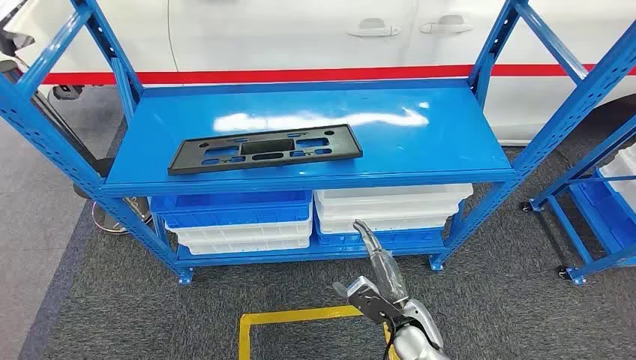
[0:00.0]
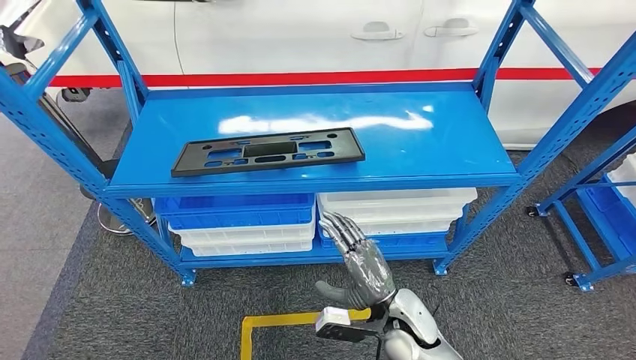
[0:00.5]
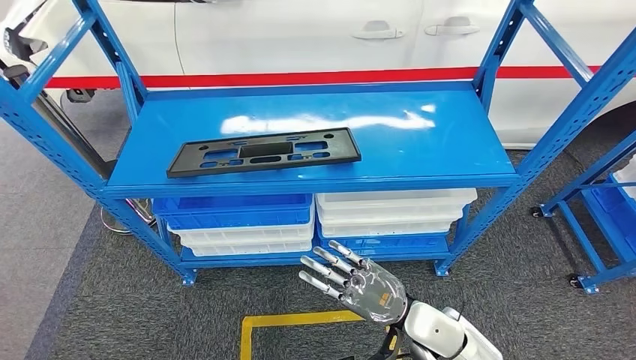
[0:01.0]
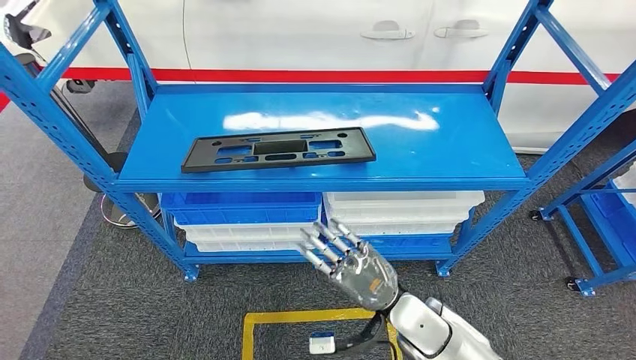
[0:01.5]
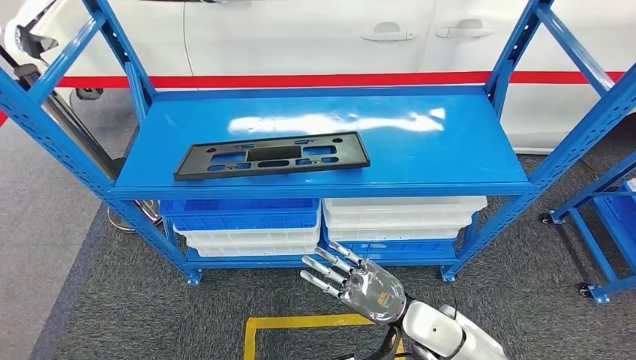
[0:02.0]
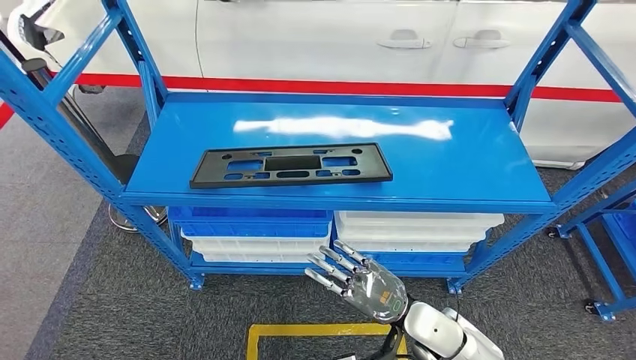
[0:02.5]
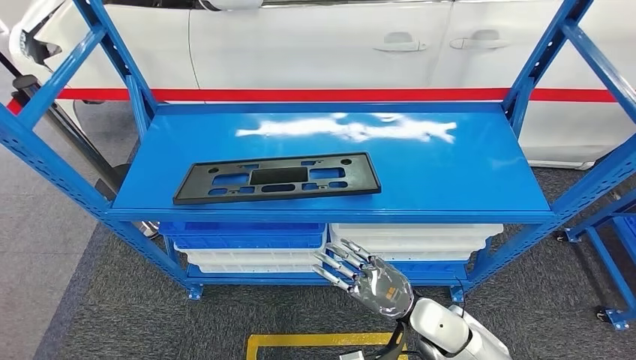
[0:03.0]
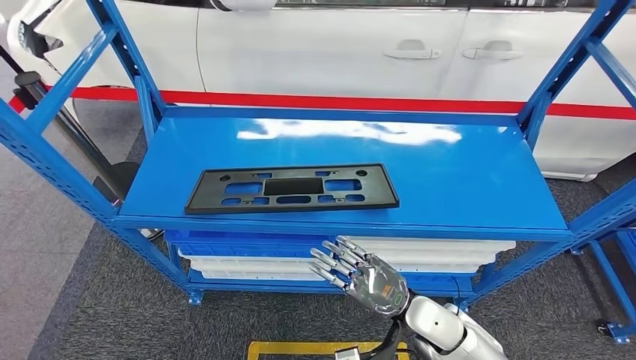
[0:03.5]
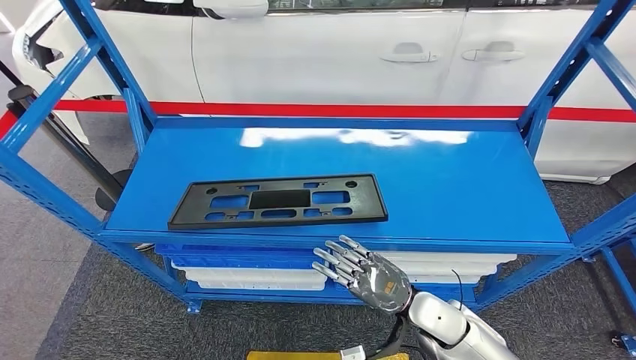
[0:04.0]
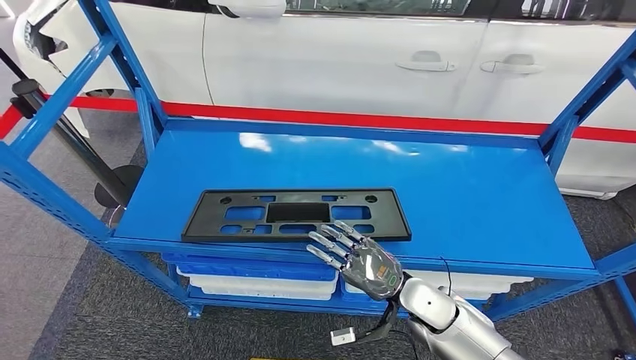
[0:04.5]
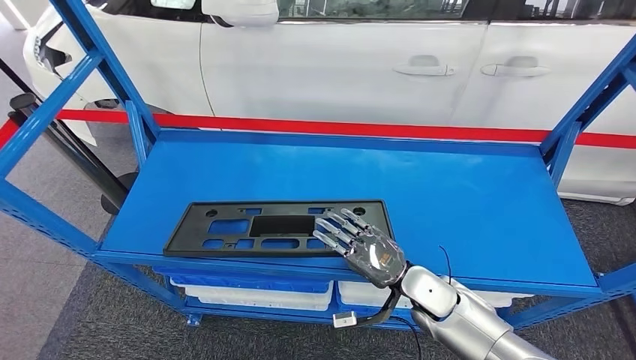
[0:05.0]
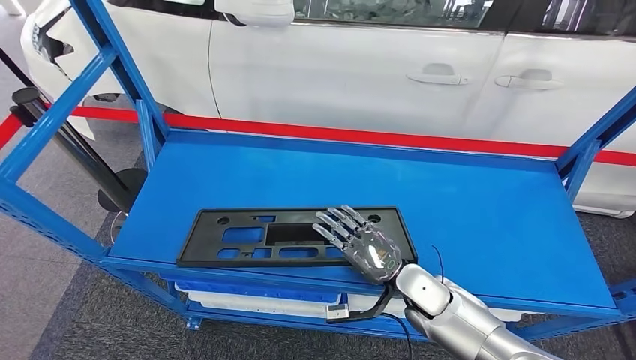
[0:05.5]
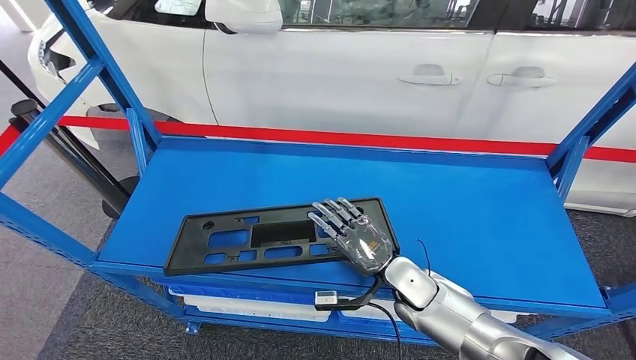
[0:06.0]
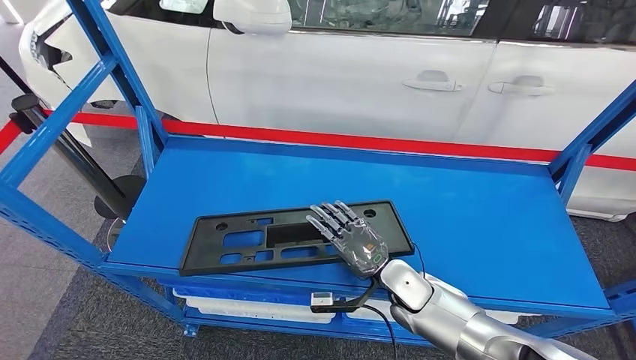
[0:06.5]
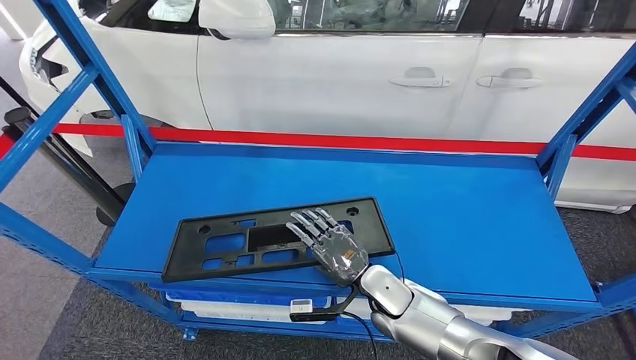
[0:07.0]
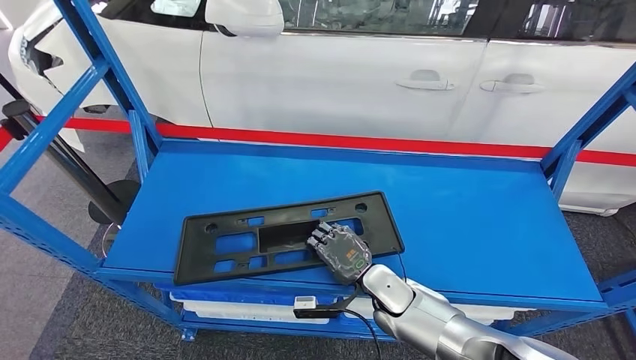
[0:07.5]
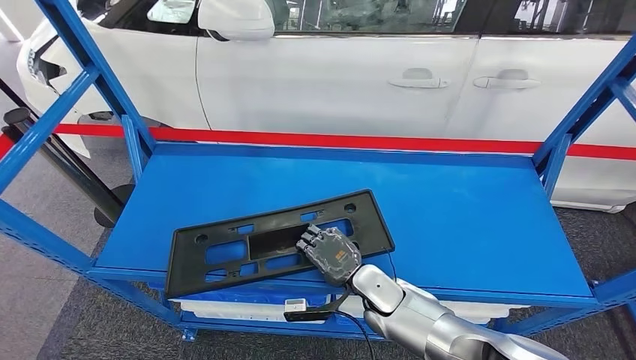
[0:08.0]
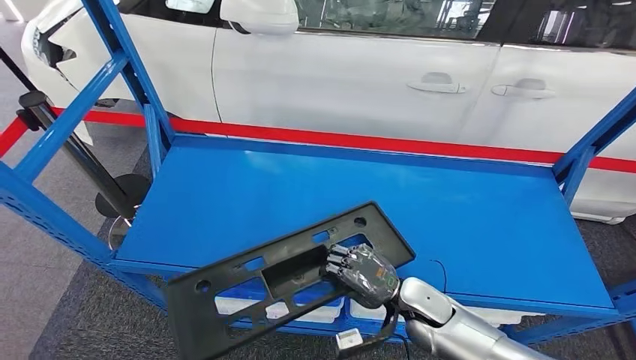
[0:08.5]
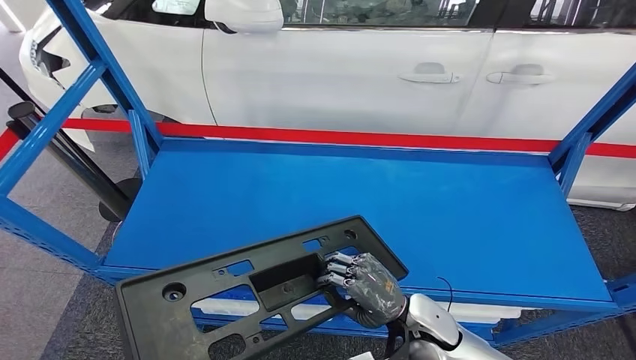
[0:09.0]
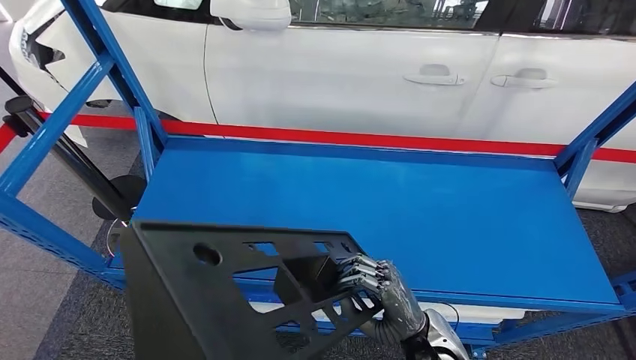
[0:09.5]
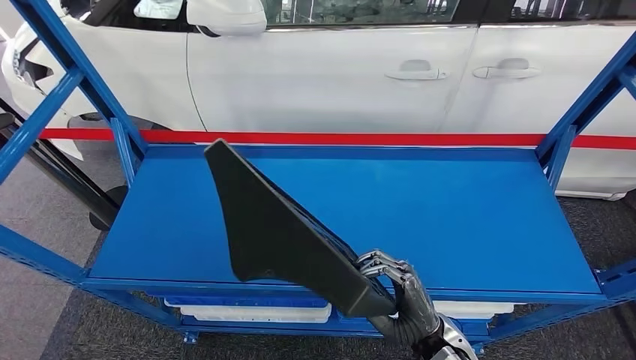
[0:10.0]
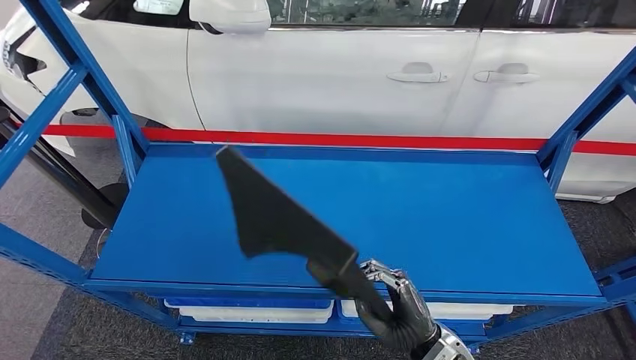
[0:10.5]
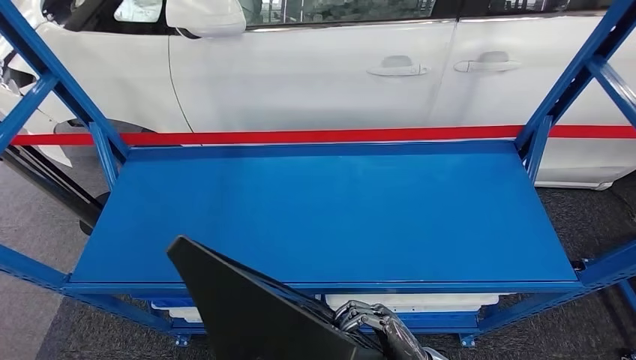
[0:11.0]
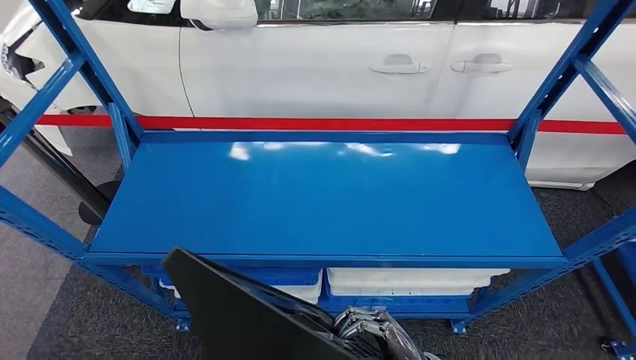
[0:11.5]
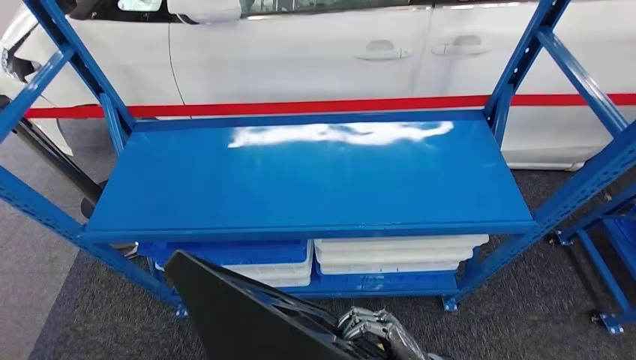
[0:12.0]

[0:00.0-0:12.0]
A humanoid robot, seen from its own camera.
Step, 0:00.0 to 0:10.0: Pick up the large material from the shelf.

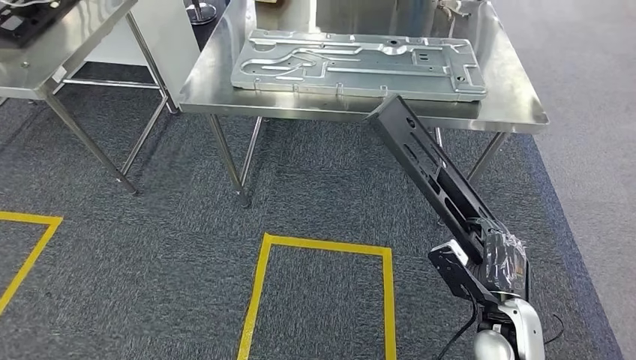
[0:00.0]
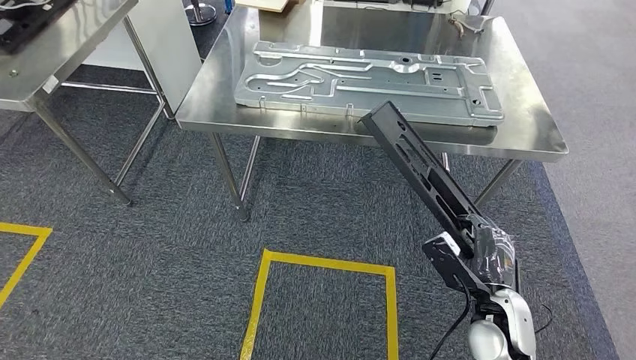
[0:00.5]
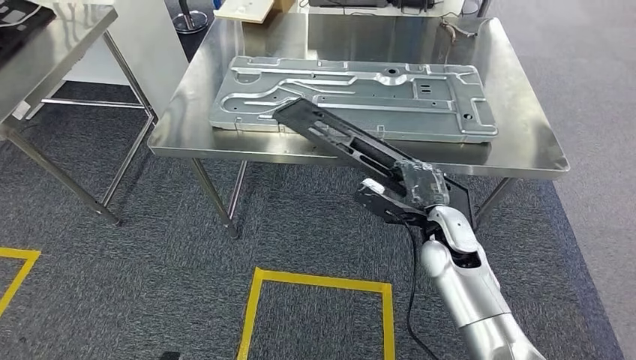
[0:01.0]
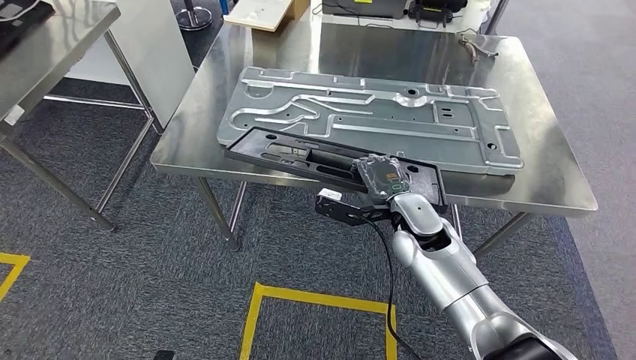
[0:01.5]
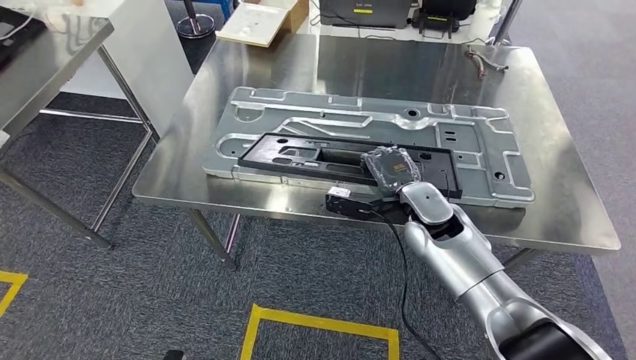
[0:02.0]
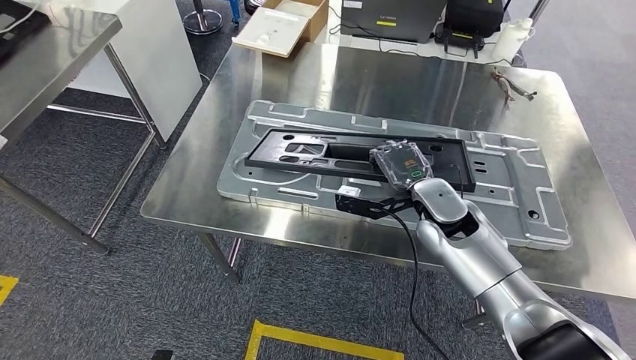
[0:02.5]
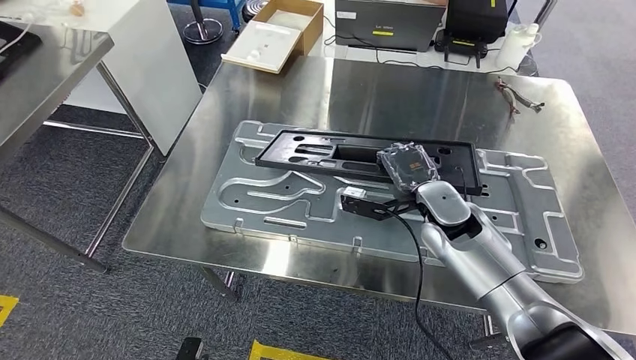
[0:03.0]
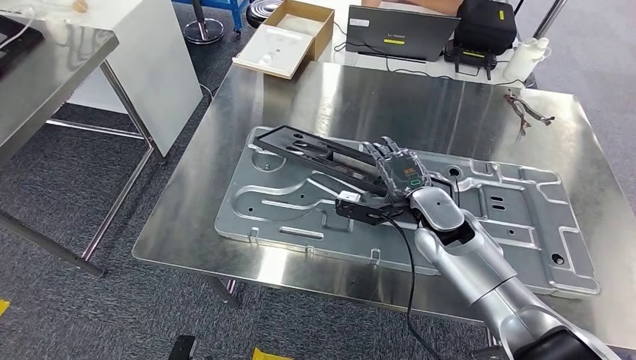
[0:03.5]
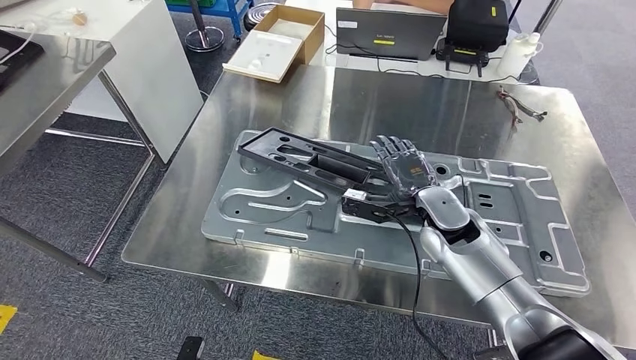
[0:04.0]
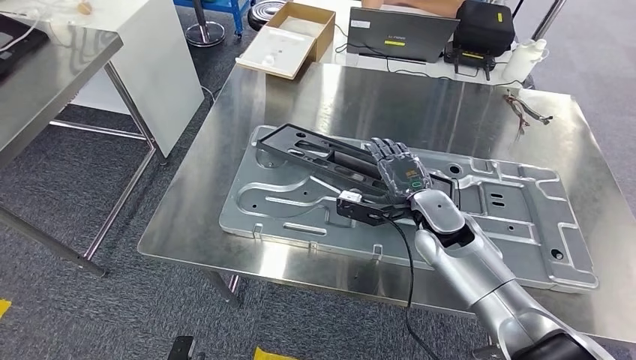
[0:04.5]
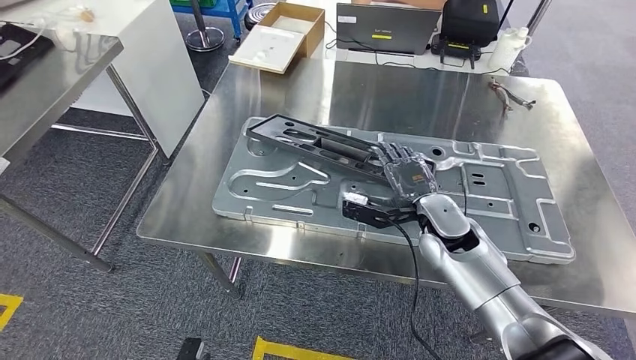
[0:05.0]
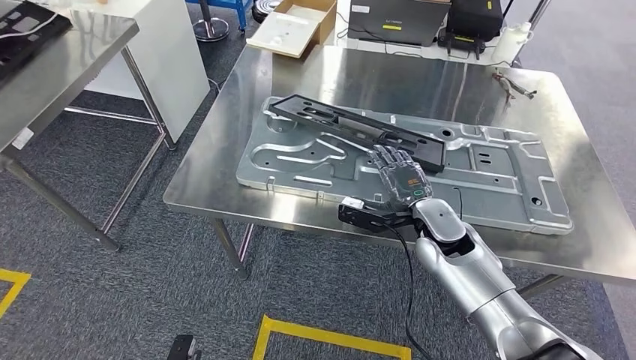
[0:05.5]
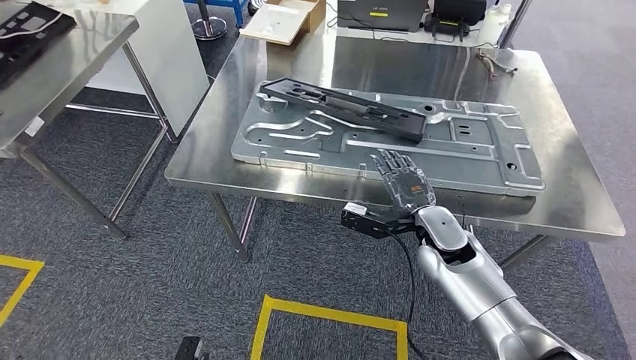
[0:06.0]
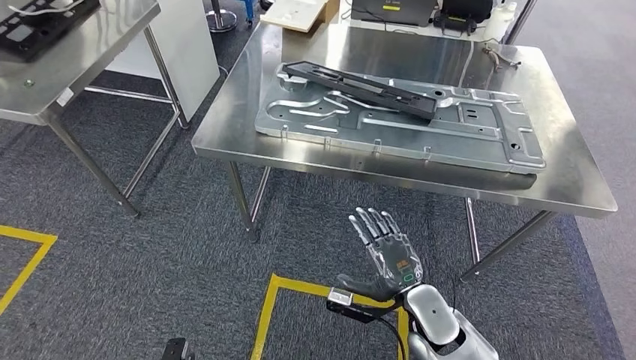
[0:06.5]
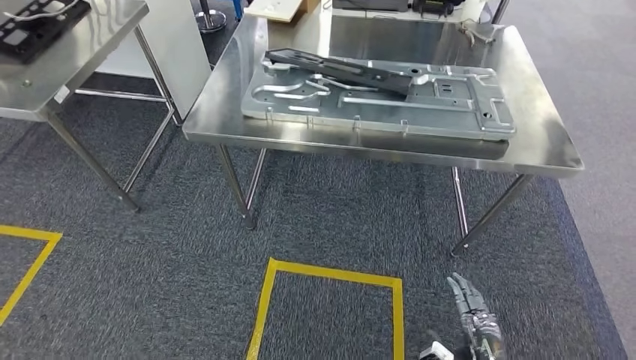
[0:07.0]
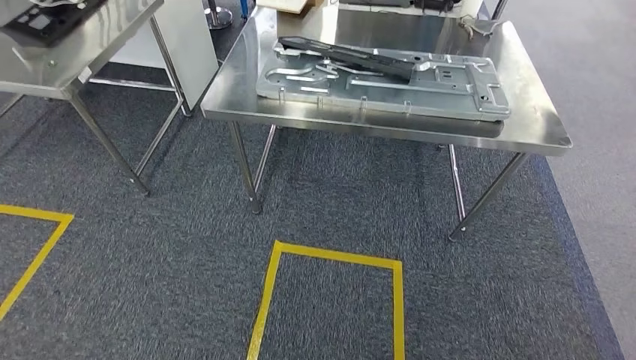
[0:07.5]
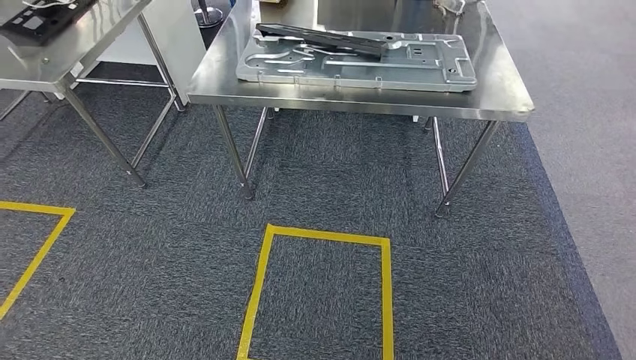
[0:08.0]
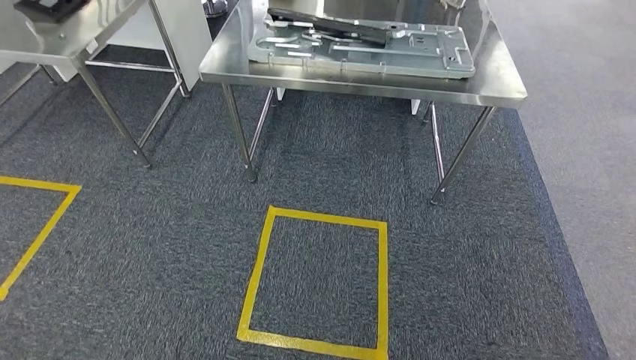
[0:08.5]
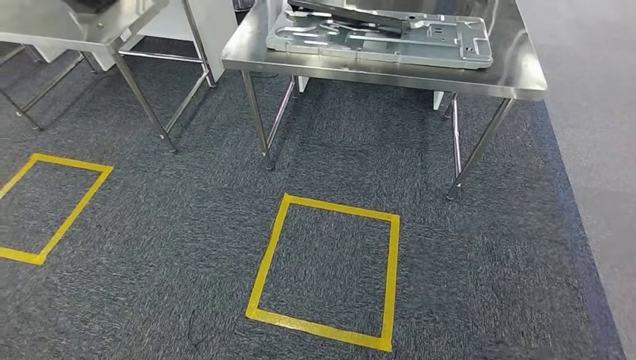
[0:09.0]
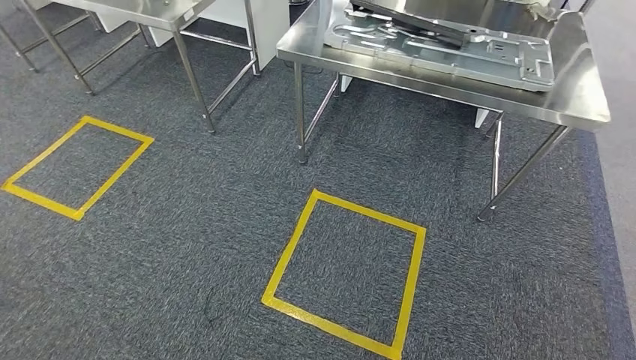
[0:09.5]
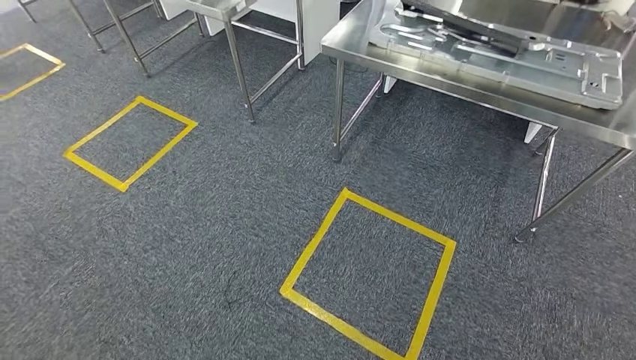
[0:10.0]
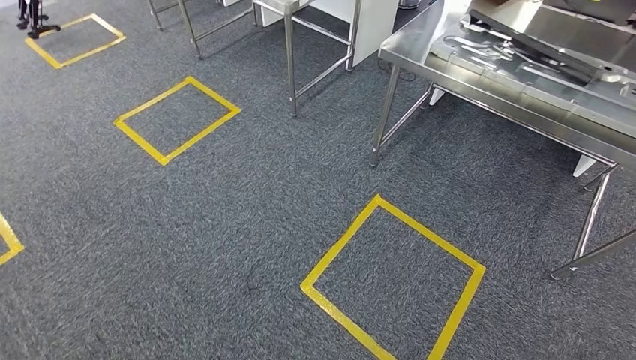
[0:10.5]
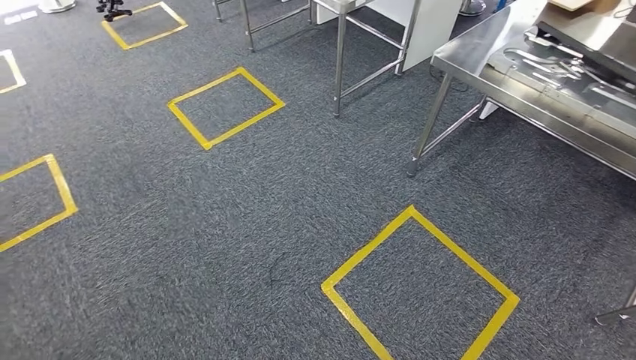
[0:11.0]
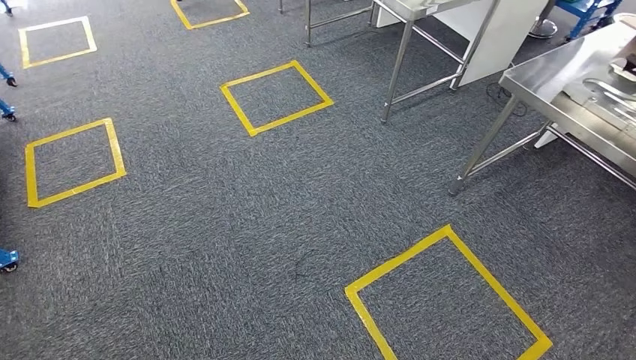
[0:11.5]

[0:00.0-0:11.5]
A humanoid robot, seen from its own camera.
Step, 0:01.0 to 0:09.5: Insert the large material into the corresponding hole on the workbench.
